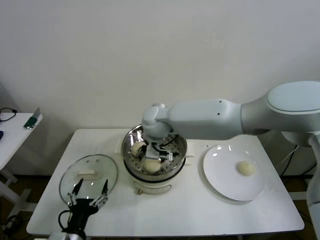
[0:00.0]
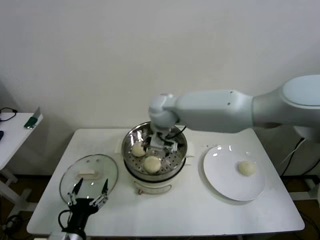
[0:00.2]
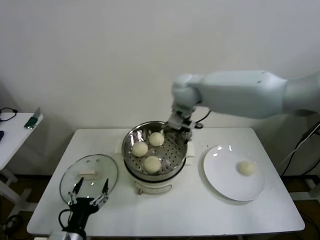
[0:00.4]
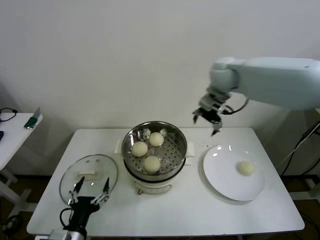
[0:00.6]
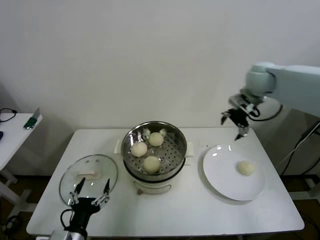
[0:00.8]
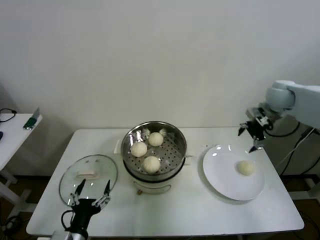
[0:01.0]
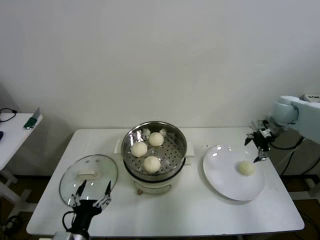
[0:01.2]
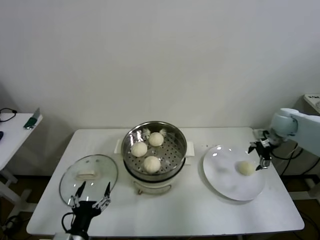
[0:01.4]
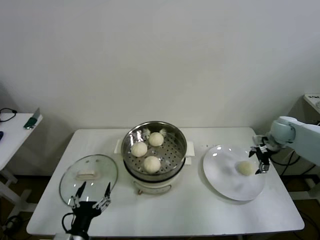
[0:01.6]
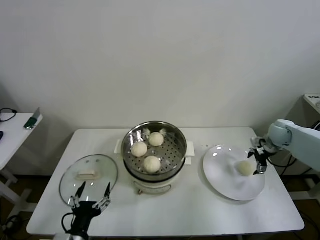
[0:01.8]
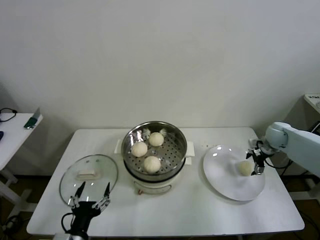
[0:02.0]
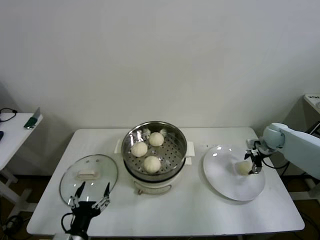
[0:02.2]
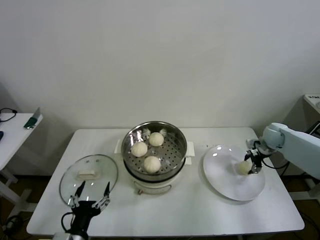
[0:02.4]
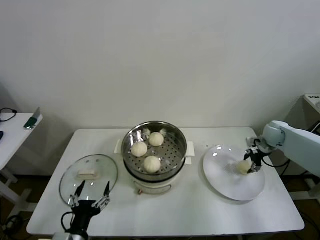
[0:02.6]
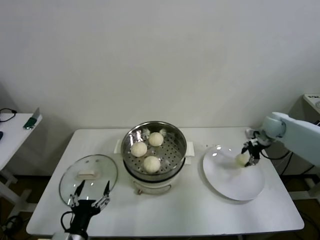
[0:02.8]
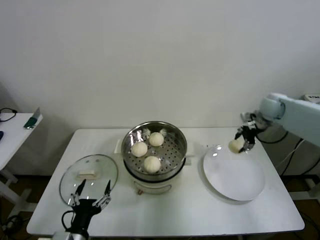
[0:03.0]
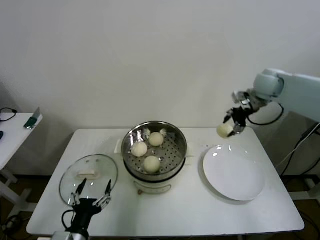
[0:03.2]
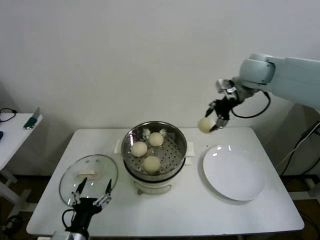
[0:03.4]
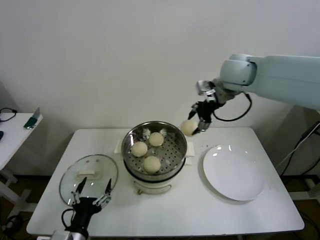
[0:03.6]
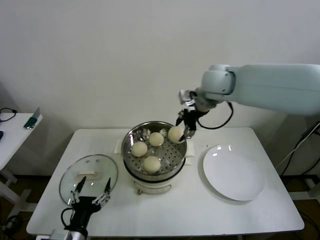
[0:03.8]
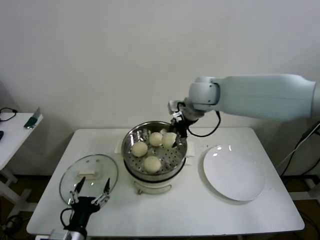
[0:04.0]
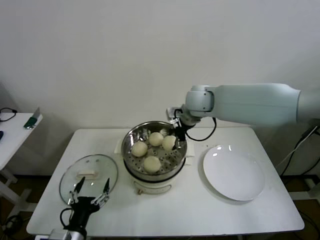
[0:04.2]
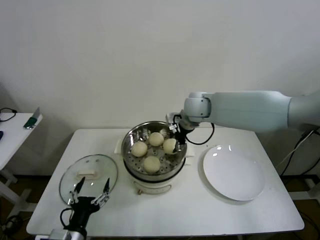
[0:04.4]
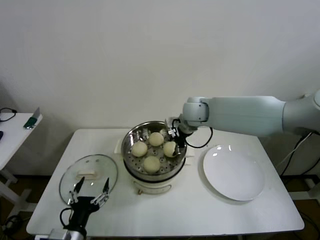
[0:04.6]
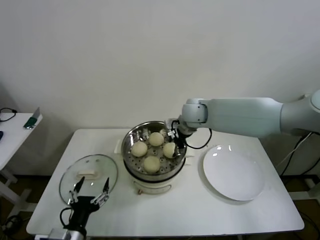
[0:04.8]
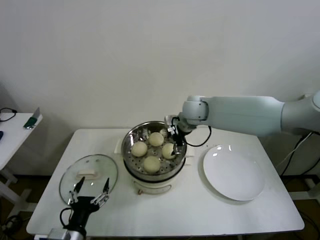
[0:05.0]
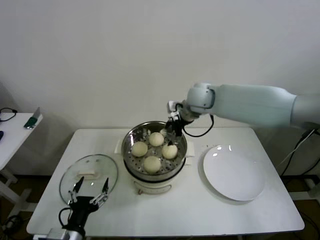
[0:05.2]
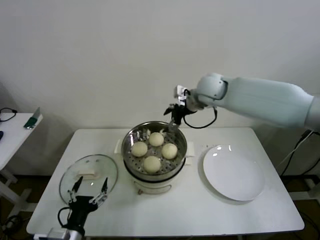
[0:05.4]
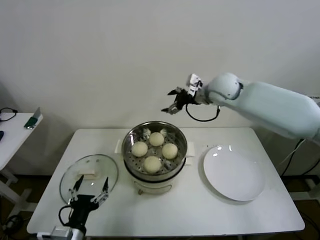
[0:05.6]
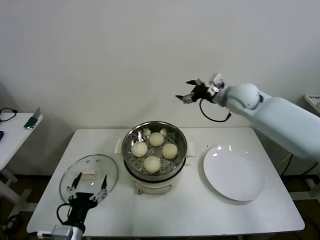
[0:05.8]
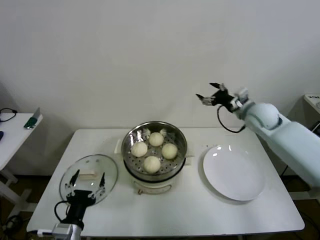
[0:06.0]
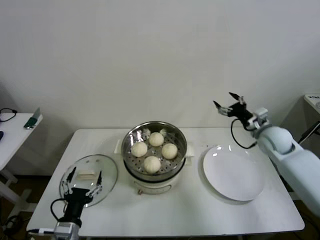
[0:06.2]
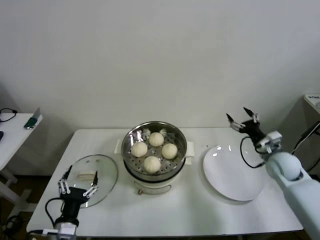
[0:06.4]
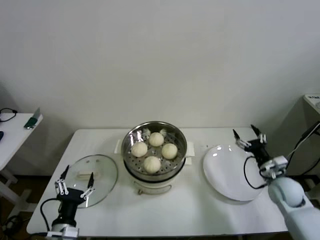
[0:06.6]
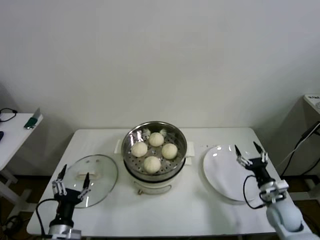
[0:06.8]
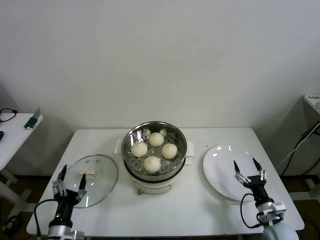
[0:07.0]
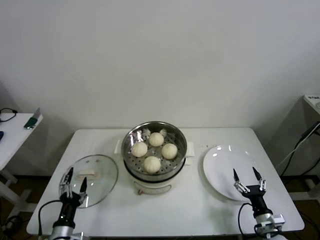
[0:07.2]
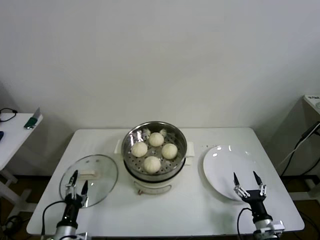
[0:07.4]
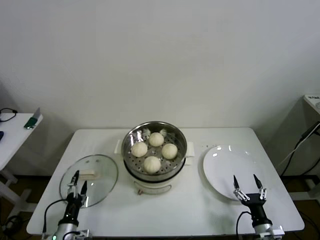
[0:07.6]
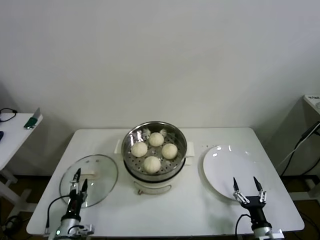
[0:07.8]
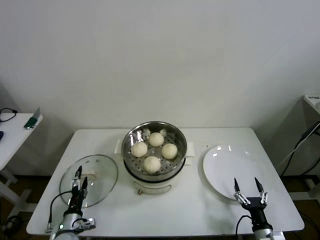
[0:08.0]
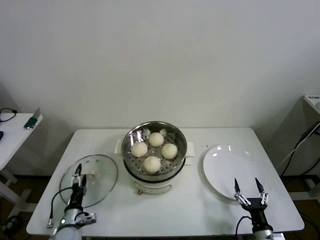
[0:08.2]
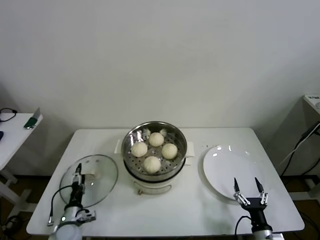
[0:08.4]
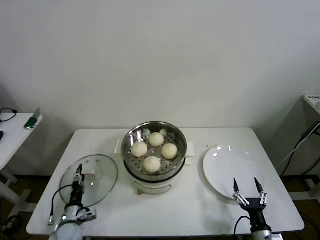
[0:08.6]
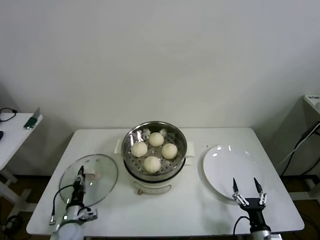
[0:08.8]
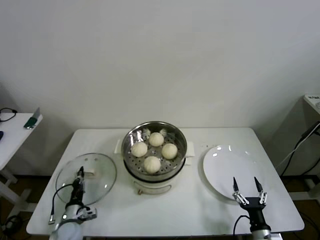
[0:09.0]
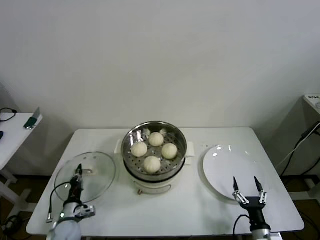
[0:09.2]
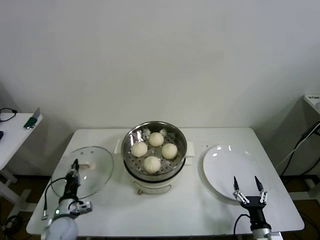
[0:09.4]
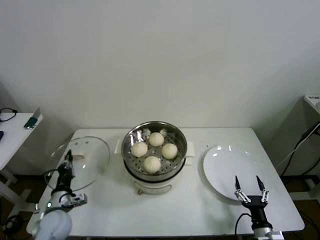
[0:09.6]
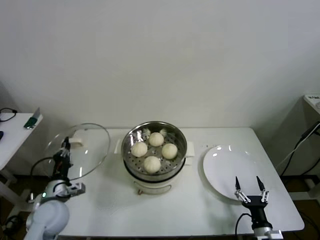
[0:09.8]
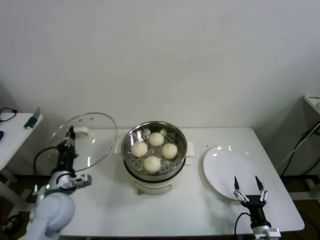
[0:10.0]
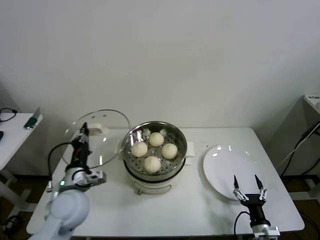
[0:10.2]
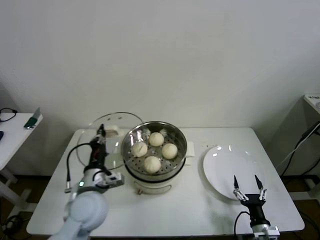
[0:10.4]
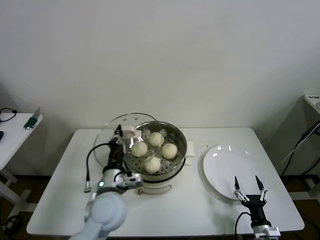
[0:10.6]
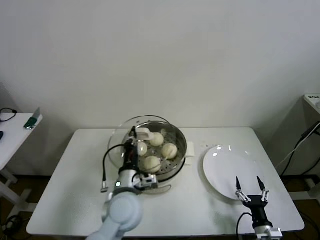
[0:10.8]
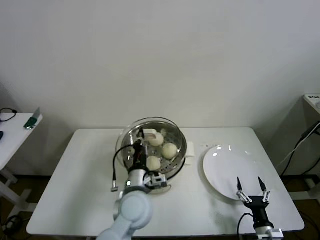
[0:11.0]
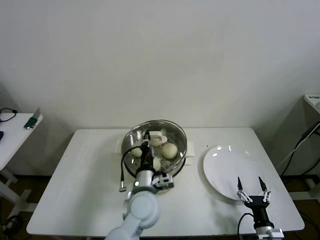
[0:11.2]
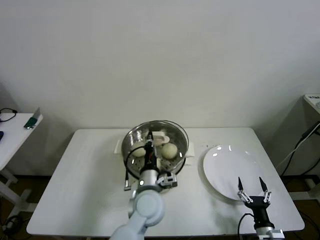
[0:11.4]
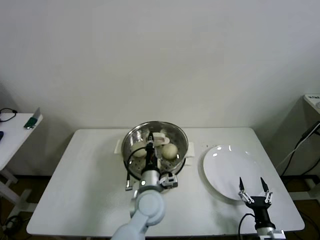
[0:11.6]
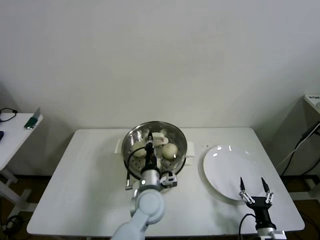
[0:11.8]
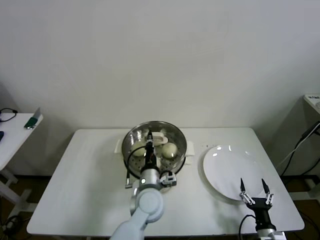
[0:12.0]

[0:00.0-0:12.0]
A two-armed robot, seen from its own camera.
Step, 0:00.0 to 0:02.2: Grasp the baozi in the plate with right gripper.
Step, 0:02.4 to 0:04.8: Place the baozi on the steamer with right gripper.
Step, 0:05.0 to 0:09.0: Grasp the pot lid with left gripper.
0:00.0 to 0:01.6: The right gripper moves to the right, some 50 cm.
0:01.6 to 0:03.0: The right gripper travels upward and to the left by approximately 10 cm, and closes up.
0:03.0 to 0:04.4: The right gripper heads to the left, covering roughly 30 cm.
0:04.4 to 0:06.0: The right gripper is displaced to the right by roughly 20 cm, and opens its fingers.
0:06.0 to 0:07.6: The left gripper travels downward and to the left by approximately 15 cm. Meanwhile the right gripper goes about 50 cm backward and downward.
0:07.6 to 0:09.0: The left gripper moves forward, about 10 cm, and closes.
0:09.0 to 0:10.4: The left gripper travels upward and to the right by roughly 25 cm.
0:10.4 to 0:12.0: The left gripper shifts roughly 15 cm to the right.

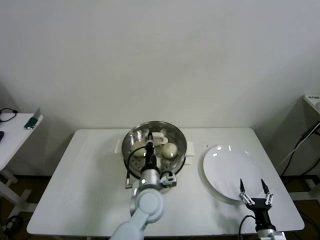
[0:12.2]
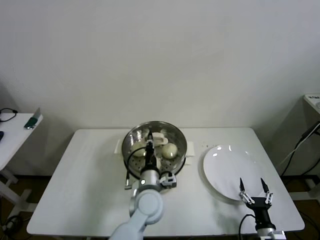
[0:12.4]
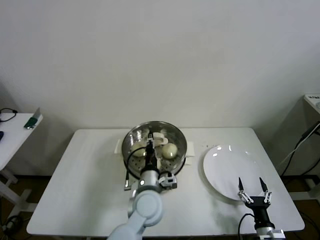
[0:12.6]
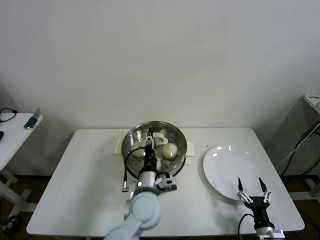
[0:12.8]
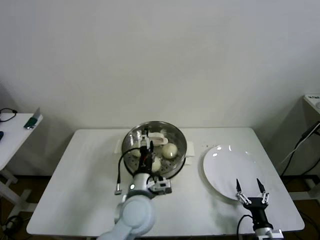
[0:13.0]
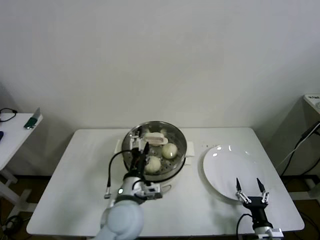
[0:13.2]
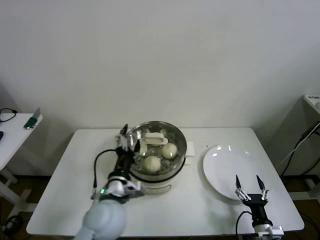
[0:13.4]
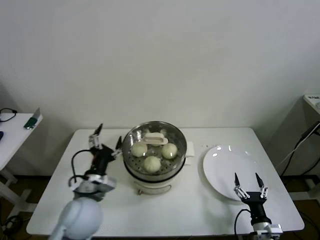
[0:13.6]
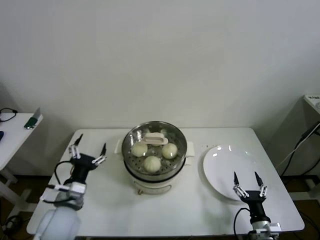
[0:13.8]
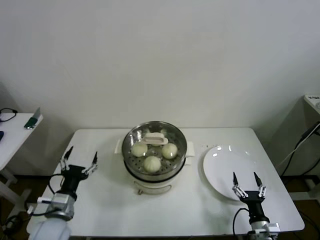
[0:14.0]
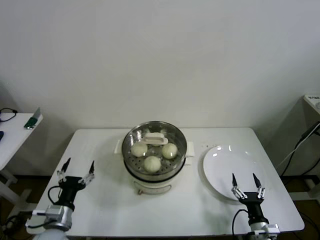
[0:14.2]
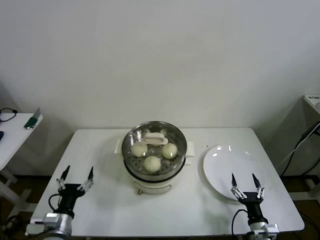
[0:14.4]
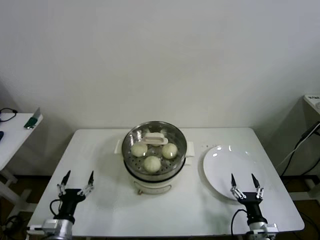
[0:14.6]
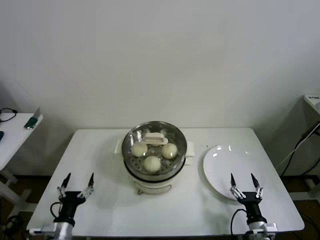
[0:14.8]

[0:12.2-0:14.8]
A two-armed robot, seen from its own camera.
0:12.2 to 0:13.4: The left gripper travels to the left, upward and backward by some 15 cm, and opens.
0:13.4 to 0:14.8: The left gripper shifts some 25 cm to the left, downward and backward.

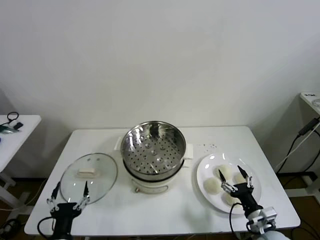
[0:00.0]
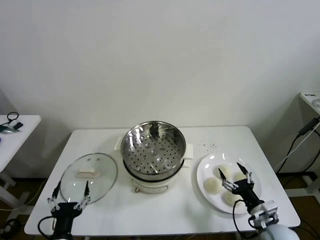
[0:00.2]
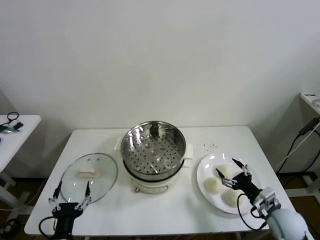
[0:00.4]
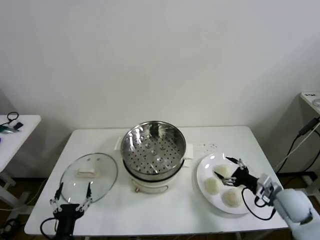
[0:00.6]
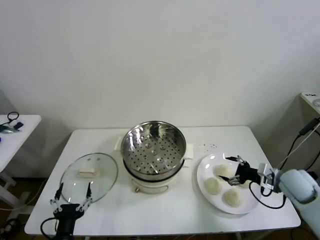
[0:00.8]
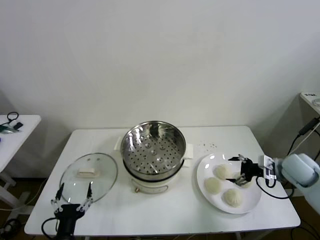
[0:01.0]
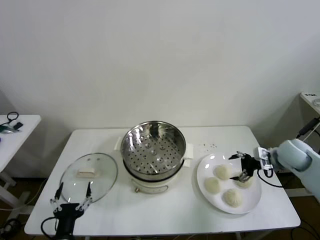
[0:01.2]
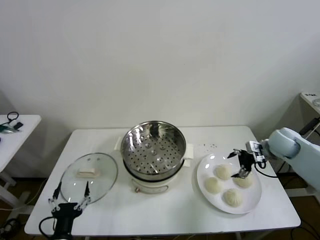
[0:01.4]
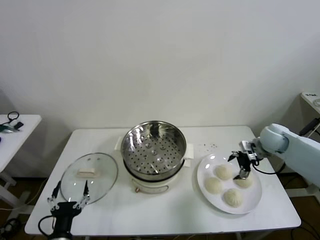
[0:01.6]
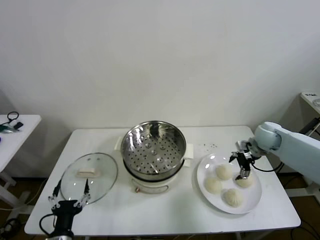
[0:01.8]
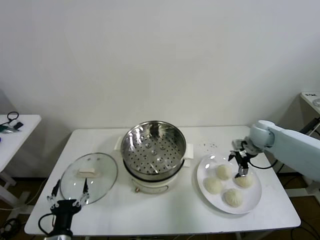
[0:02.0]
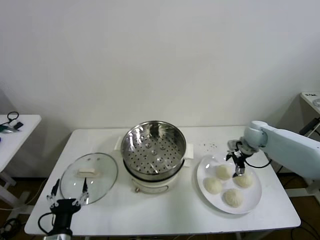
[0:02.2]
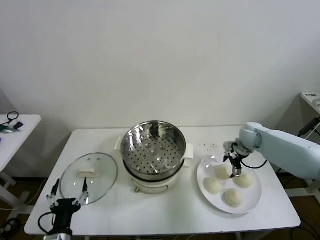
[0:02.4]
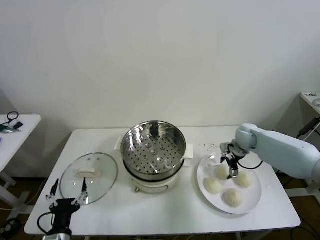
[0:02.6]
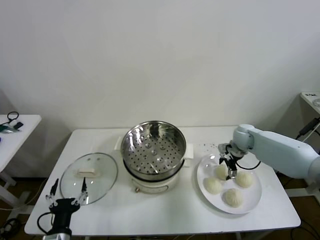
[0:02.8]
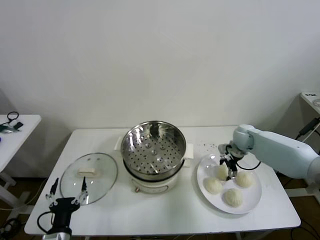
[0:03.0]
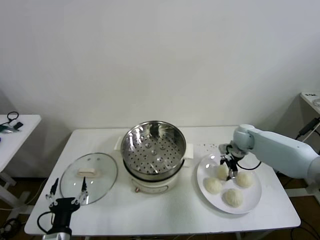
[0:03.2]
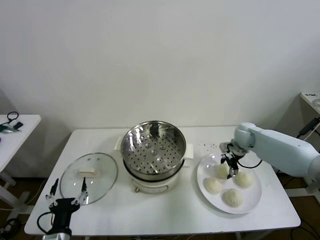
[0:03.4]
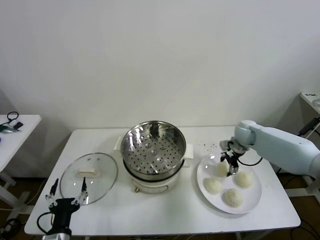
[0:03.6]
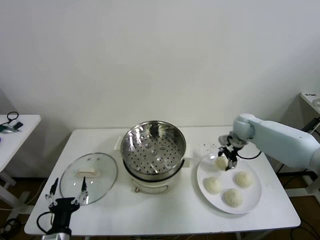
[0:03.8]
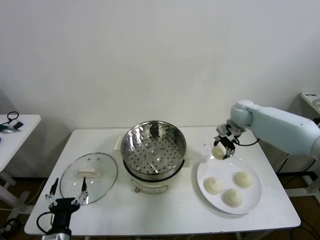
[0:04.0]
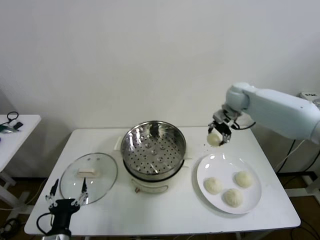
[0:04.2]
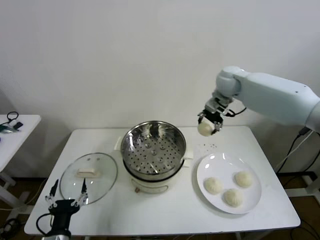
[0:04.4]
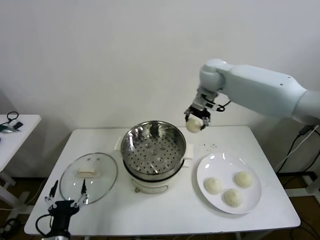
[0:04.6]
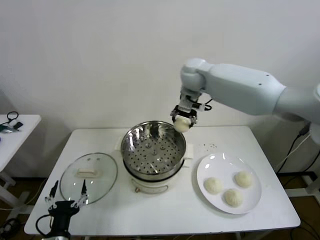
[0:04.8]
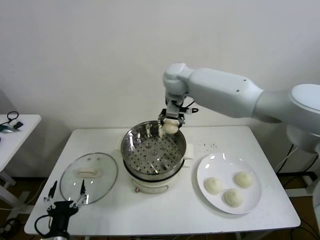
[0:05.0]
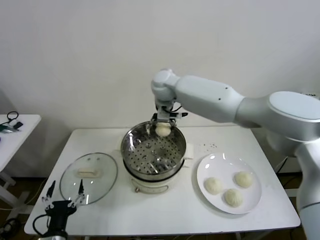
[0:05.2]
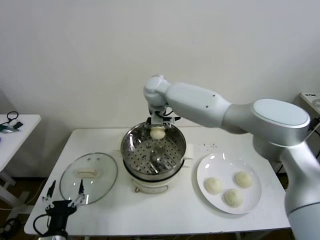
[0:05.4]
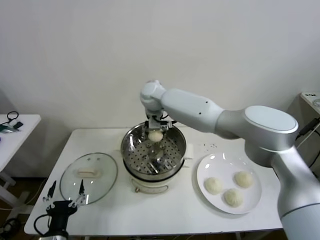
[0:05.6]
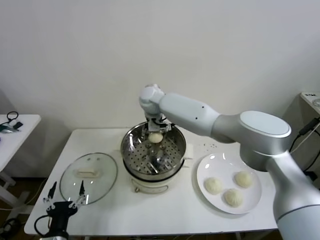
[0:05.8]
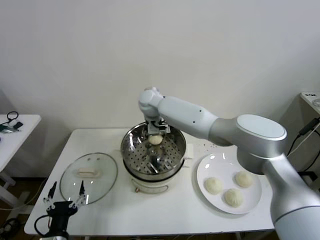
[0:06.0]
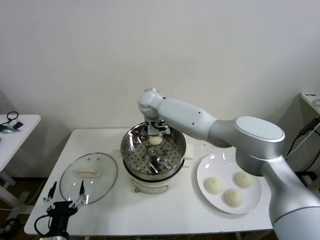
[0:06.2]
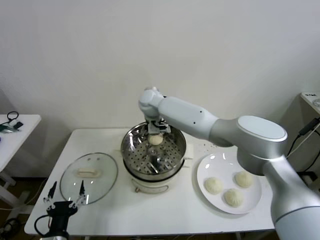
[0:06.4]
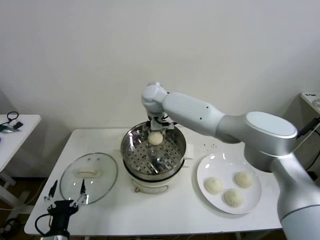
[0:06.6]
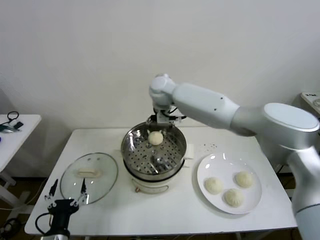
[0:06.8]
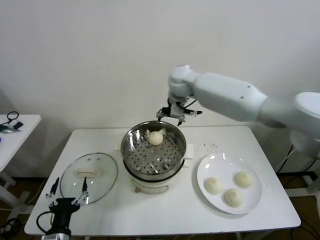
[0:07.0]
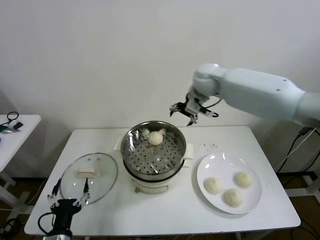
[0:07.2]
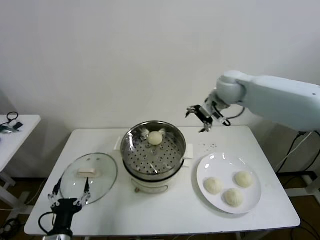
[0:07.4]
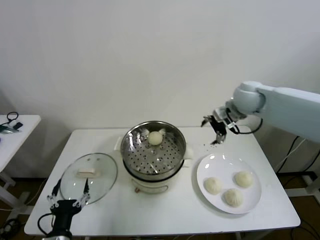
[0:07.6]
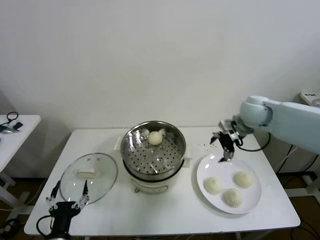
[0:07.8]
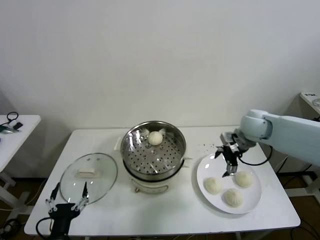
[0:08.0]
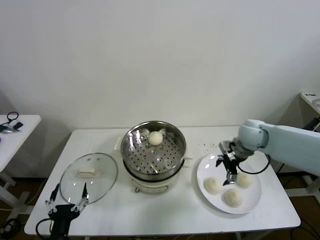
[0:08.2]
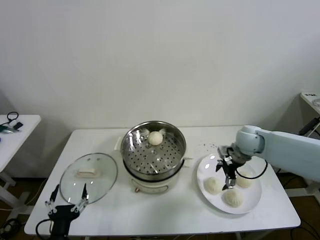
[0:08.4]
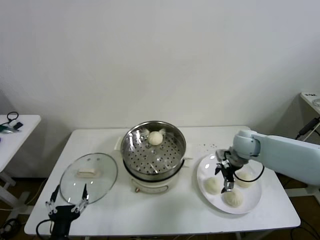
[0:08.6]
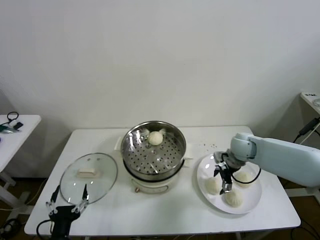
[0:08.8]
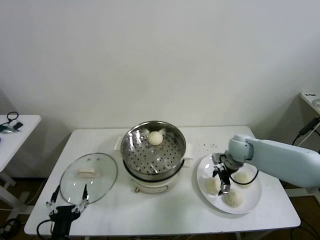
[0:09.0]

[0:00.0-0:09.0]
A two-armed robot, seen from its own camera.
Step, 0:00.0 to 0:03.0: Grasp the baozi in the plate with right gripper.
Step, 0:03.2 to 0:06.2: Place the baozi on the steamer with right gripper.
0:01.6 to 0:03.0: The right gripper is displaced to the left and downward by some 10 cm, and closes its fingers.
0:03.0 to 0:04.4: The right gripper shifts about 25 cm upward and to the left, and closes up.
0:04.4 to 0:06.0: The right gripper shifts about 25 cm to the left and downward, and opens its fingers.
0:06.0 to 0:07.6: The right gripper shifts some 30 cm to the right, and opens up.
0:07.6 to 0:09.0: The right gripper heads downward, covering about 20 cm.
